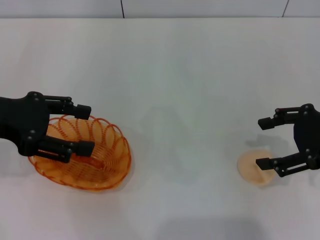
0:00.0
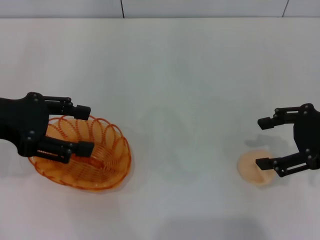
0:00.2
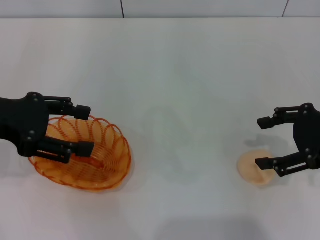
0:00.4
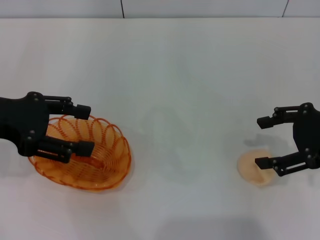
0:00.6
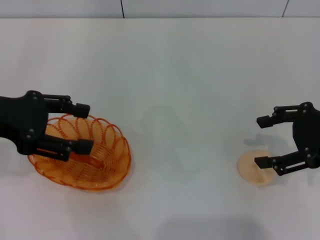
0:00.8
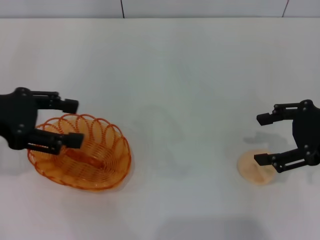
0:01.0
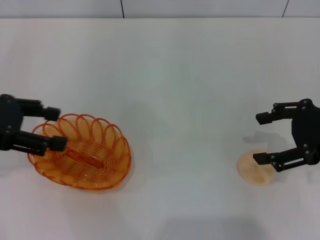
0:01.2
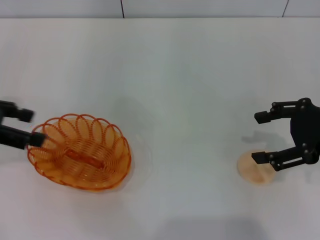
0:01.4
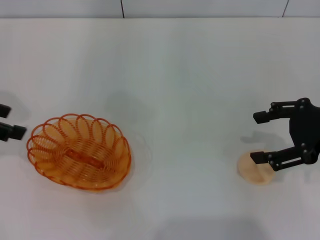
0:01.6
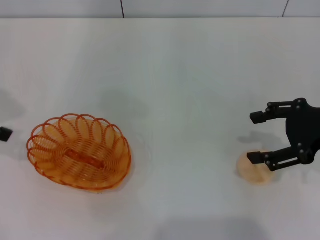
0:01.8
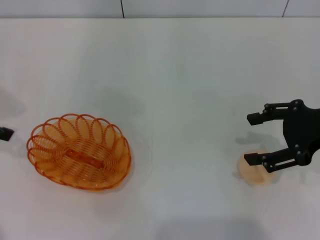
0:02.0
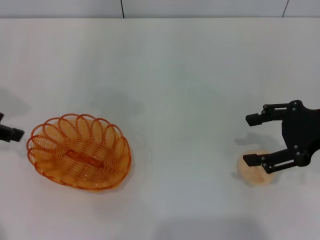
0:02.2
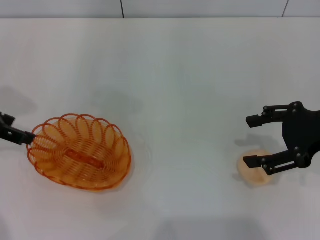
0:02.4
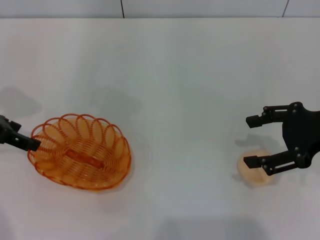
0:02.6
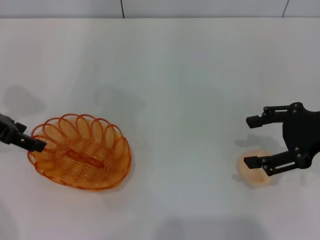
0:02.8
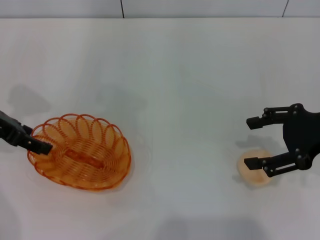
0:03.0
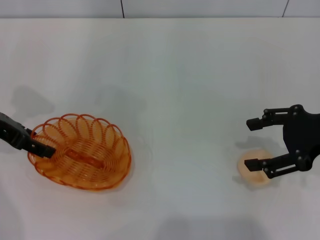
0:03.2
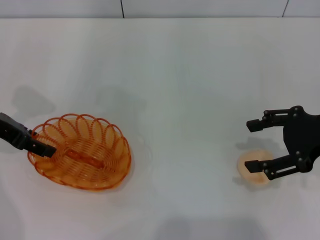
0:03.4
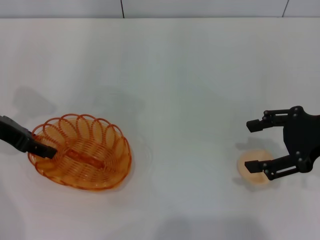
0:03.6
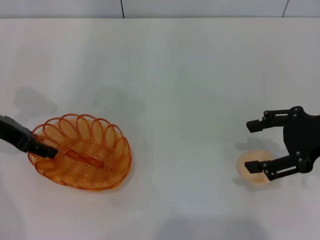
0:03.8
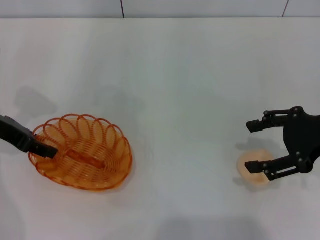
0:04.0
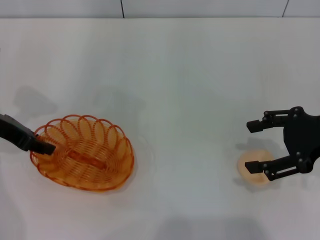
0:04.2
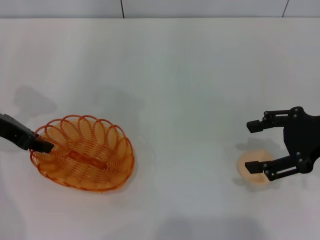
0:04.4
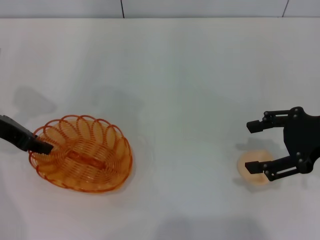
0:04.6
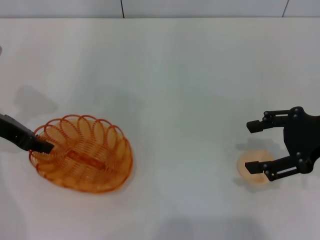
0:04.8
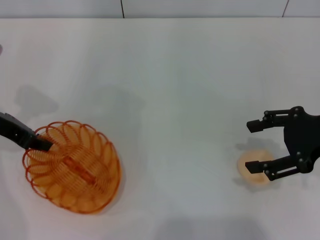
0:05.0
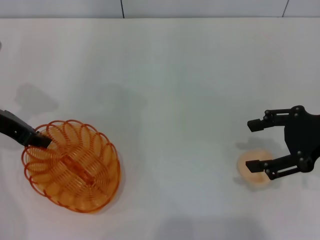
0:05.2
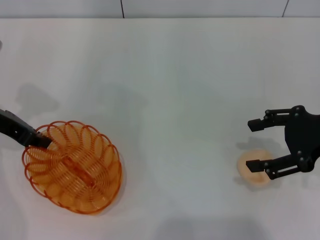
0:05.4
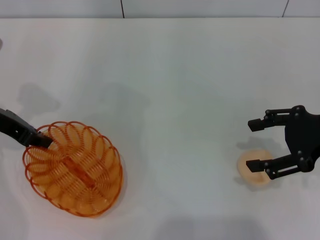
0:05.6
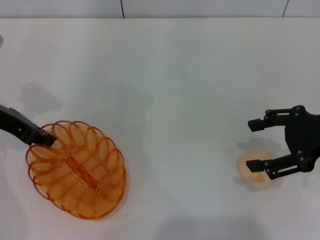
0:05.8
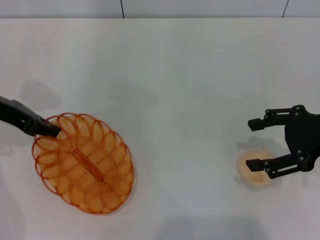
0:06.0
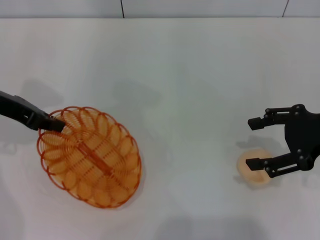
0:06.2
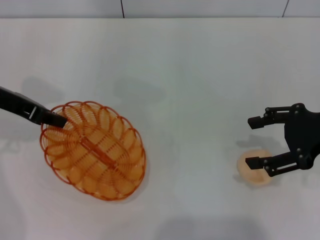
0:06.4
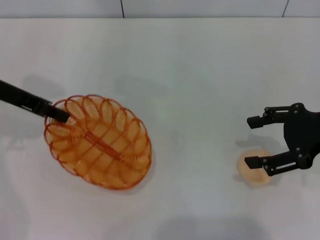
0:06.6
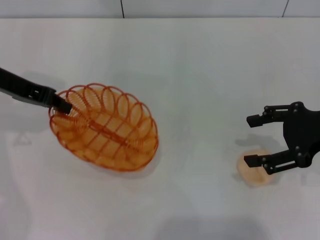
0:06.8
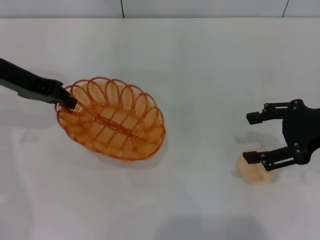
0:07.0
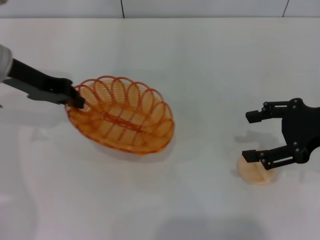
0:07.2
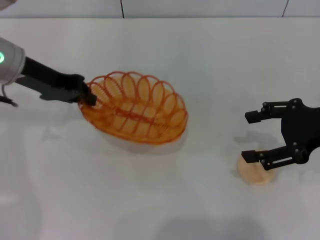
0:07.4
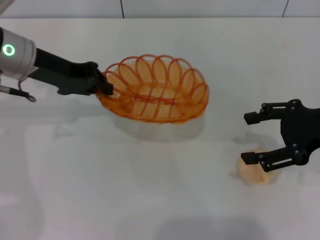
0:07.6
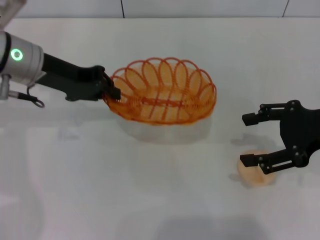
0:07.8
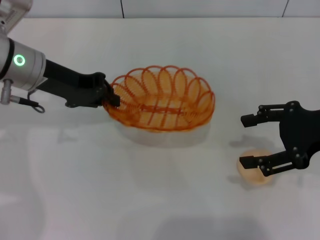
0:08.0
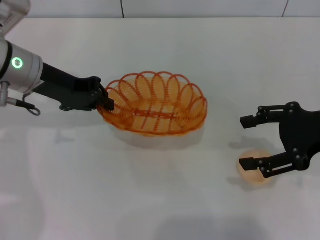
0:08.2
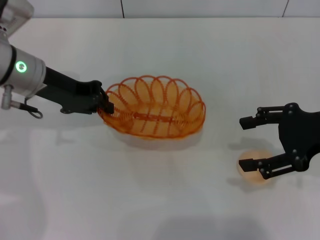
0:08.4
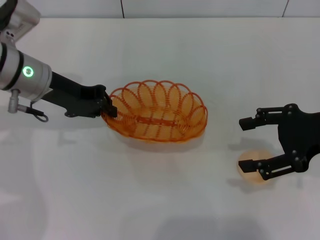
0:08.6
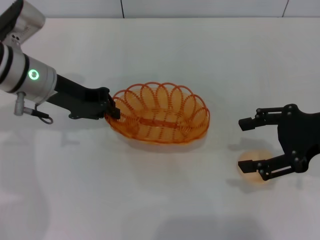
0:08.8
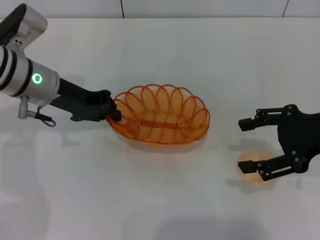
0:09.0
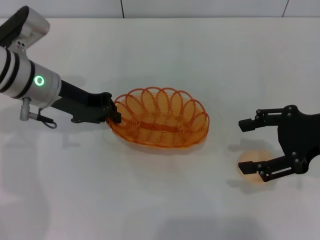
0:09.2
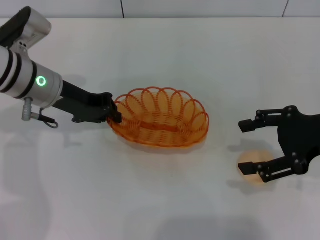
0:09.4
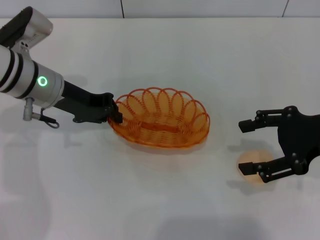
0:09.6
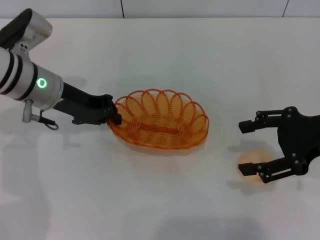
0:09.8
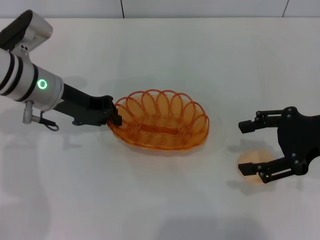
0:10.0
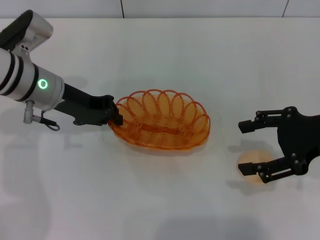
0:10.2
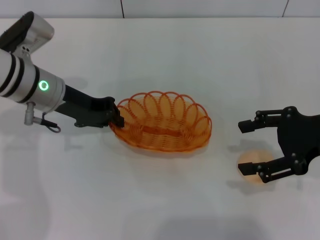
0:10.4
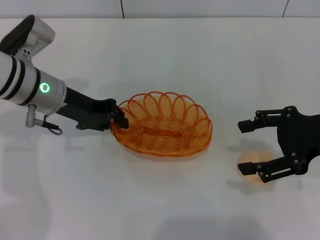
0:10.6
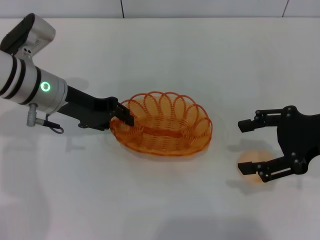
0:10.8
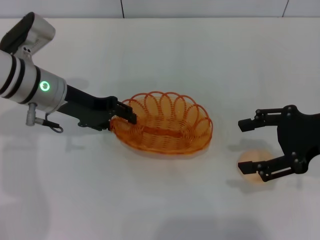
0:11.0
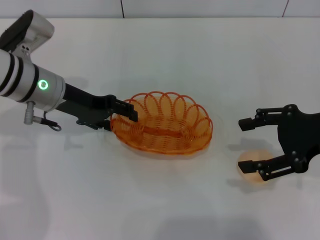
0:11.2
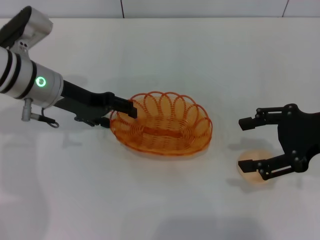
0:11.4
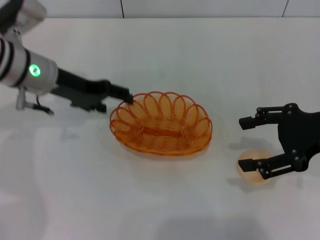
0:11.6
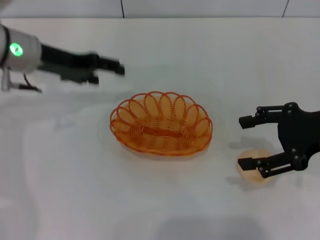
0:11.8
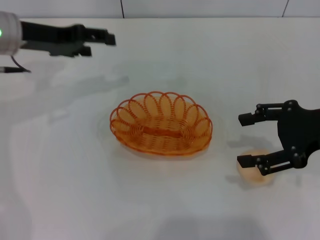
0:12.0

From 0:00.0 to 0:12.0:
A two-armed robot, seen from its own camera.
Step, from 0:00.0 to 0:06.8: Pick up the basket with the left gripper.
Step, from 0:07.0 to 0:11.8: Place the basket in the center of view with the left gripper.
From 0:00.0 to 0:01.6: The left gripper moves to the left, some 5 cm.
From 0:01.6 to 0:03.0: The left gripper goes approximately 5 cm downward.
From 0:03.0 to 0:04.4: The left gripper closes.
From 0:04.4 to 0:06.0: The left gripper closes.
From 0:06.0 to 0:07.6: The left gripper goes about 5 cm to the right.
From 0:07.6 to 0:09.0: The left gripper changes place by roughly 5 cm.
From 0:09.0 to 0:10.4: The two grippers keep their place.
From 0:10.4 to 0:12.0: The left gripper goes about 5 cm upward, and opens its fingers.

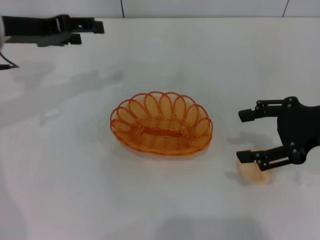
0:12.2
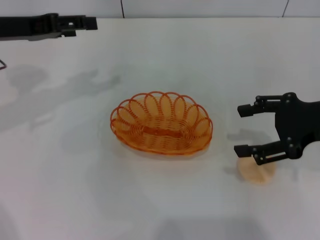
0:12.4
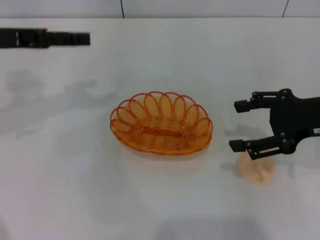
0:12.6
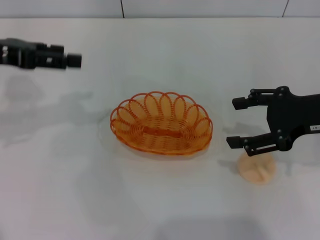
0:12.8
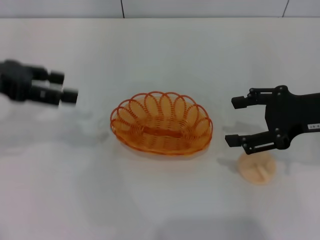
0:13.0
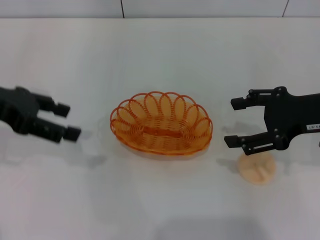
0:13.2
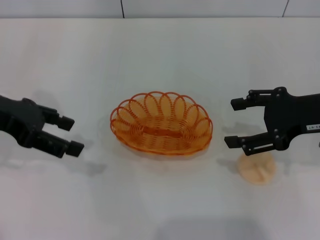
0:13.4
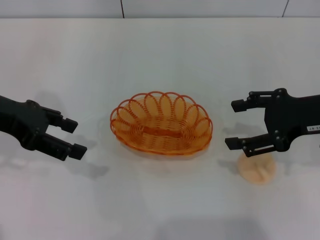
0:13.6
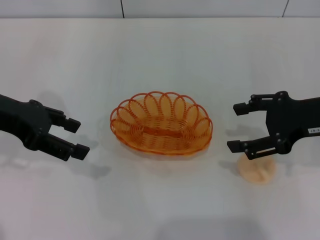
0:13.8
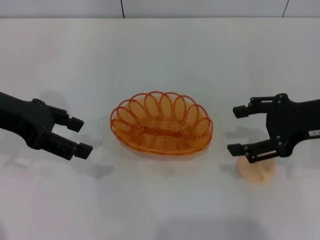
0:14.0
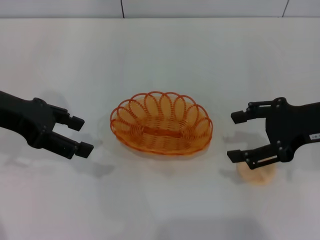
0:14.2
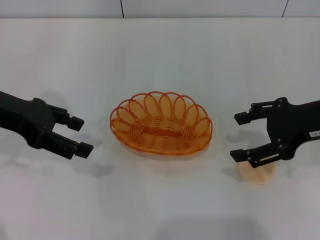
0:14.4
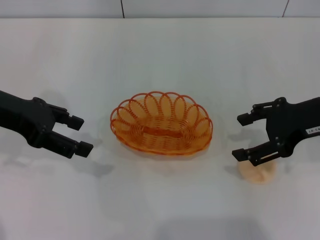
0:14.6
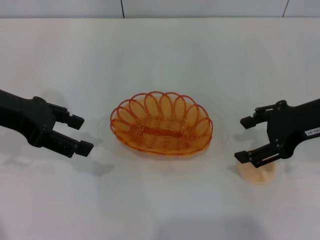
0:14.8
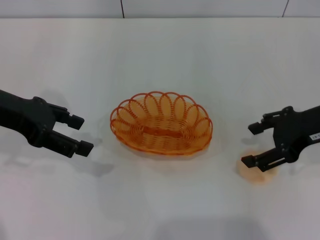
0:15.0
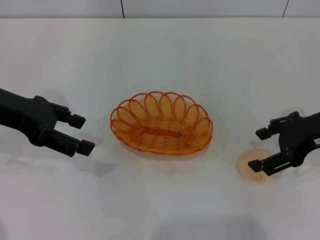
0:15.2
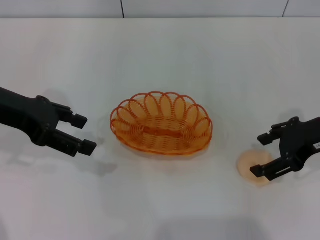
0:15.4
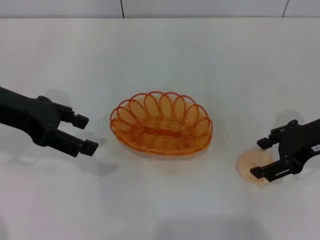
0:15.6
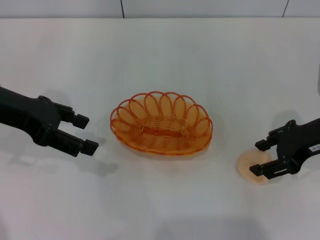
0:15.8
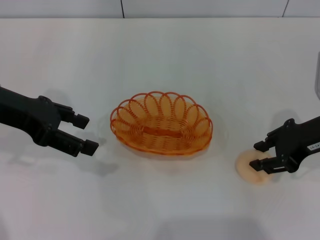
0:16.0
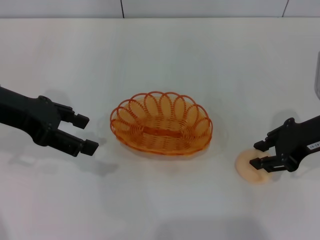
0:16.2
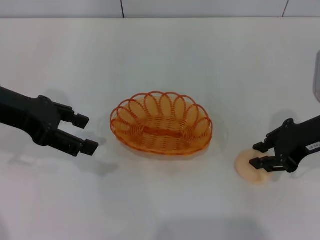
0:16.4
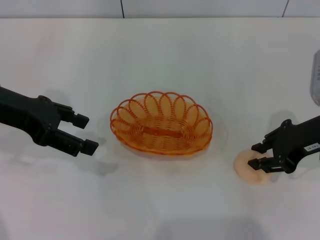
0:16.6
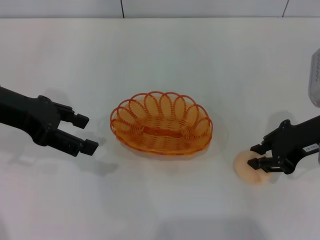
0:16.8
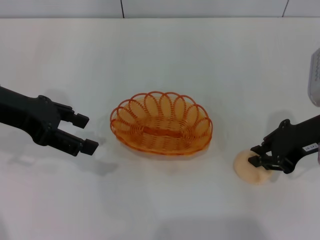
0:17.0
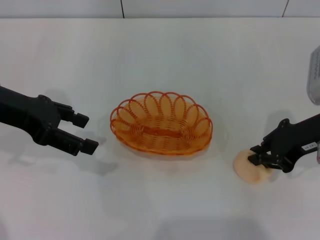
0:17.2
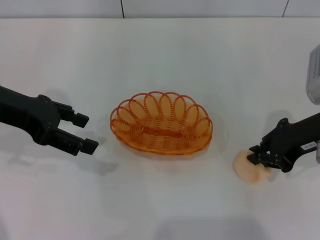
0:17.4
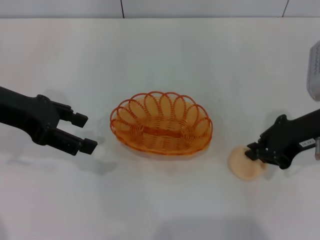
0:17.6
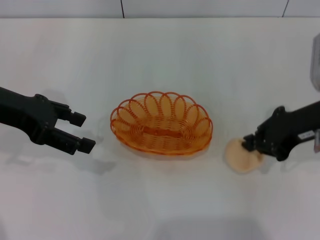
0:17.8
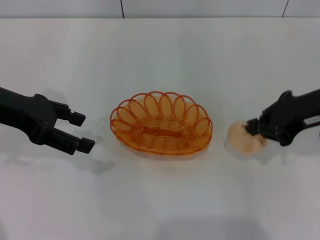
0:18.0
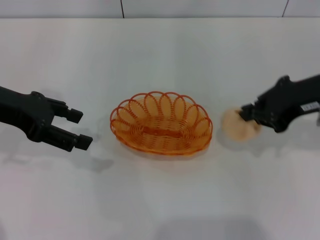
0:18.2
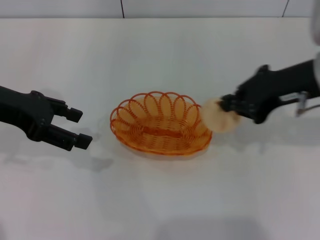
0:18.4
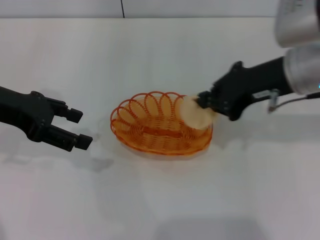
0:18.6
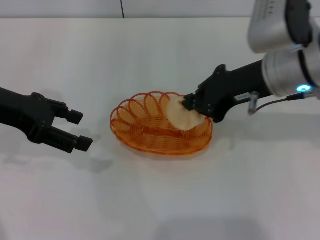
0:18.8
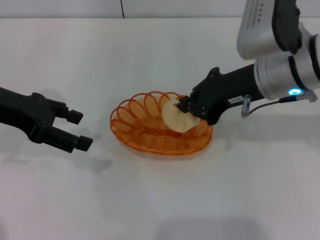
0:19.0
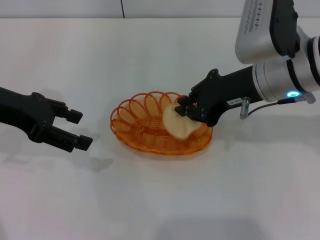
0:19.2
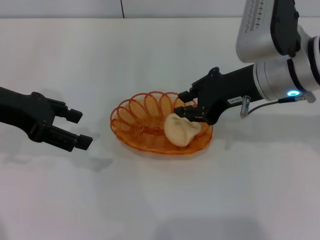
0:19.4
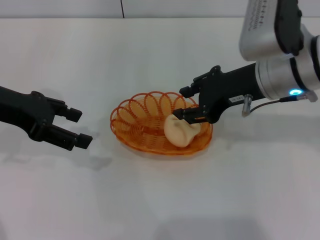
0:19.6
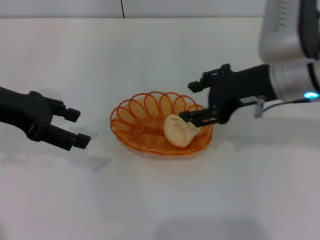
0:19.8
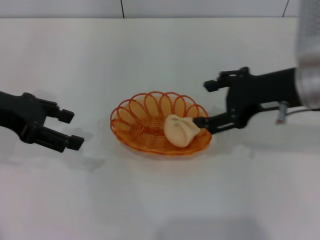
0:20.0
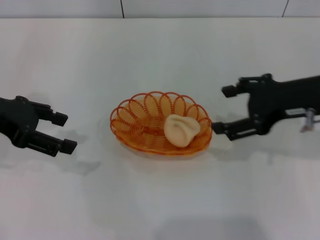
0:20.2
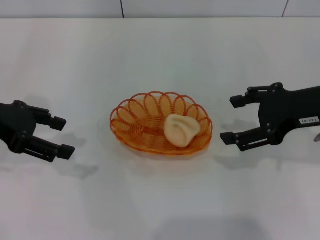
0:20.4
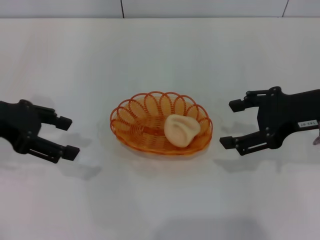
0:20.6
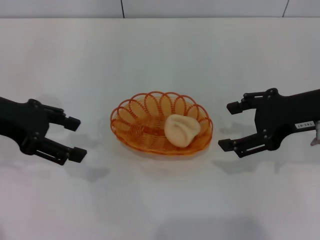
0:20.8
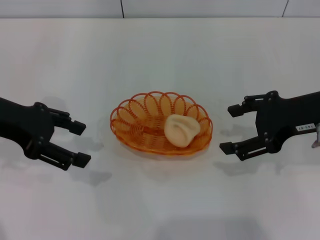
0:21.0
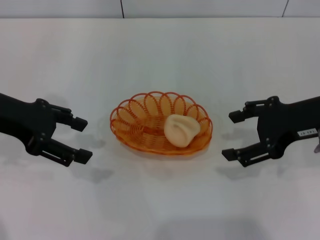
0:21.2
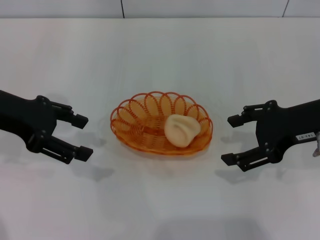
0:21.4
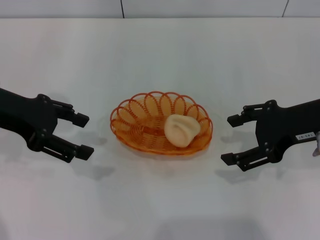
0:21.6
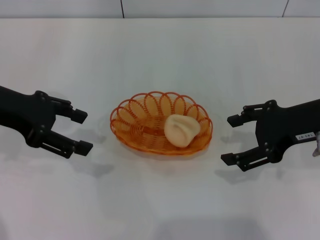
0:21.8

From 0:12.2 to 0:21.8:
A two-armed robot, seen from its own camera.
Step, from 0:12.2 to 0:17.8: Pick up the egg yolk pastry with the right gripper.
Step, from 0:18.2 to 0:20.2: Place the egg yolk pastry into the basket with the right gripper.
From 0:12.2 to 0:13.8: The left gripper shifts roughly 10 cm backward.
From 0:15.4 to 0:17.0: The right gripper closes.
From 0:17.0 to 0:18.6: The right gripper is displaced to the left and upward by approximately 10 cm.
From 0:18.6 to 0:20.2: The right gripper shifts some 5 cm to the right, and opens its fingers.
From 0:20.2 to 0:21.8: There are only small adjustments of the grippers.

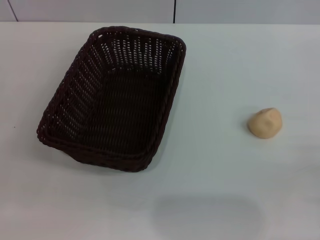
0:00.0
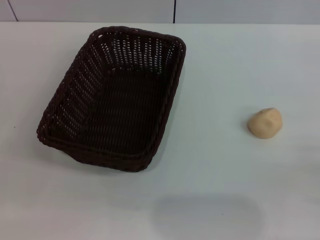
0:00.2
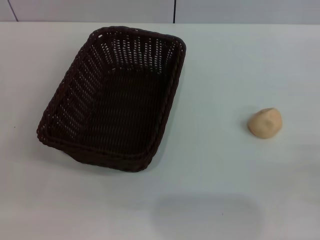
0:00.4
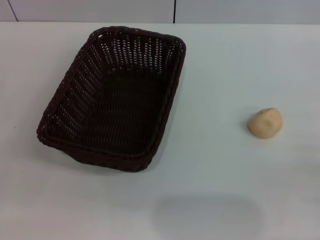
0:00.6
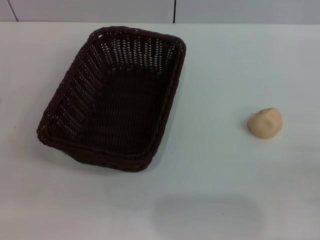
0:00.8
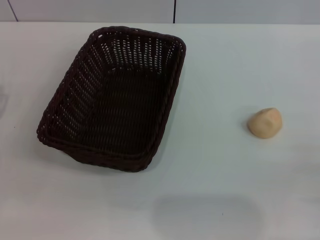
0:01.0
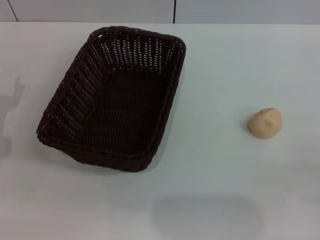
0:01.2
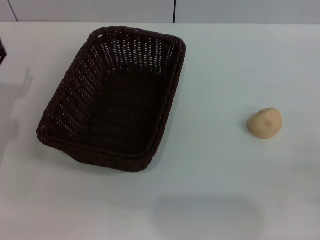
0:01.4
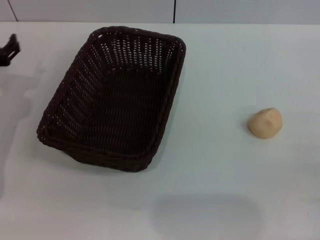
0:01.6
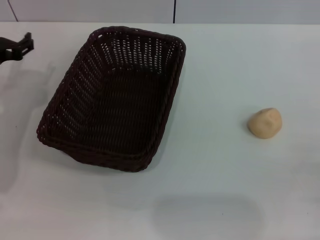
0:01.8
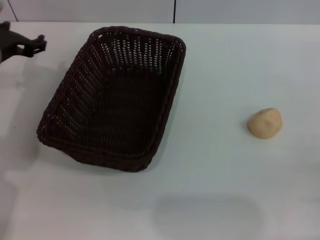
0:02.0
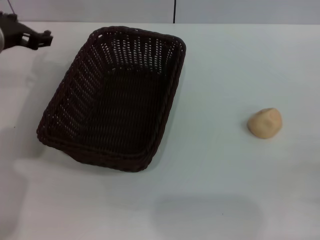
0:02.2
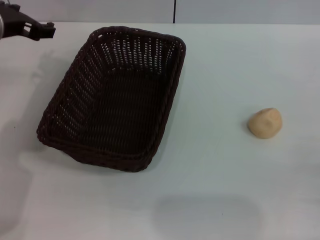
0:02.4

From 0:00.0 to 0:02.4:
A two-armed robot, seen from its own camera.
From 0:01.2 to 0:02.4: The left gripper heads upward, forward and to the right, covering about 20 cm.
